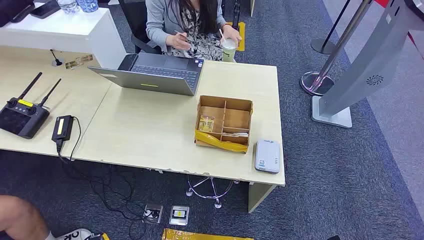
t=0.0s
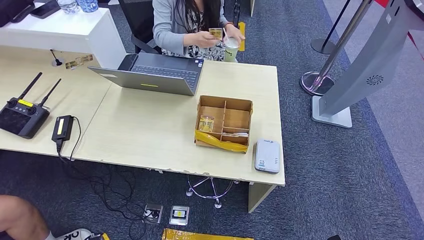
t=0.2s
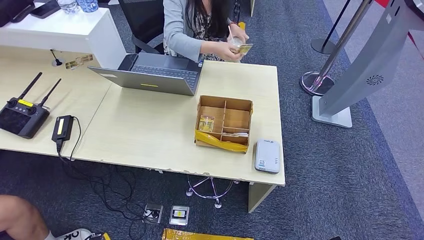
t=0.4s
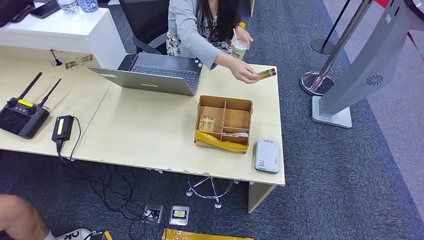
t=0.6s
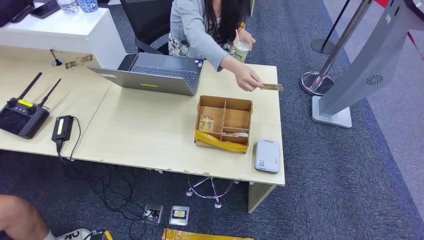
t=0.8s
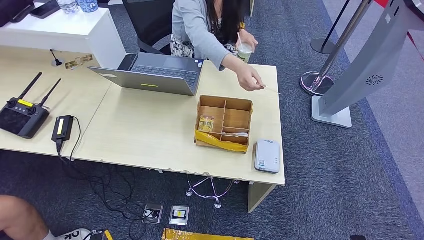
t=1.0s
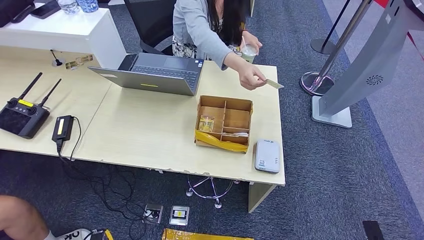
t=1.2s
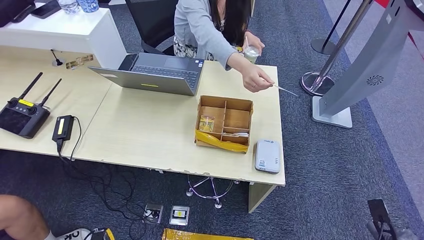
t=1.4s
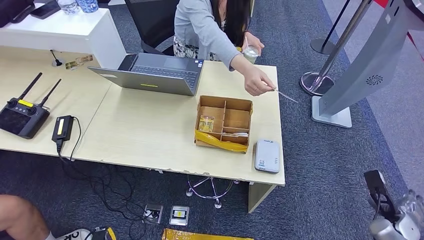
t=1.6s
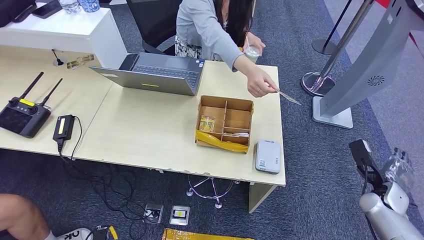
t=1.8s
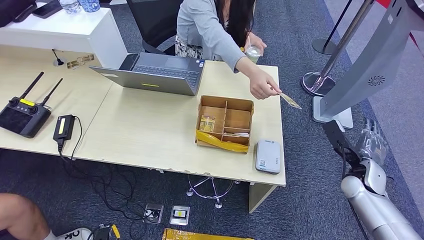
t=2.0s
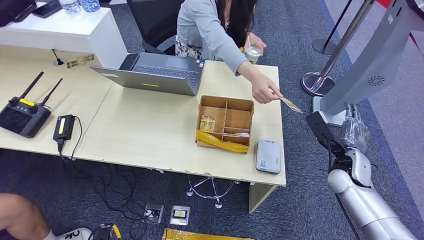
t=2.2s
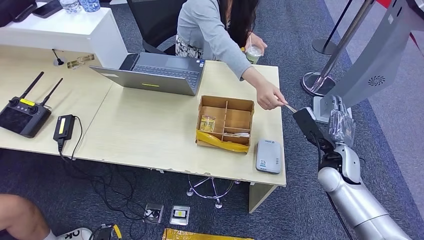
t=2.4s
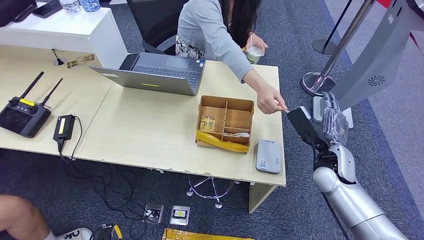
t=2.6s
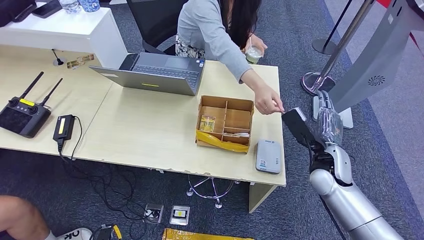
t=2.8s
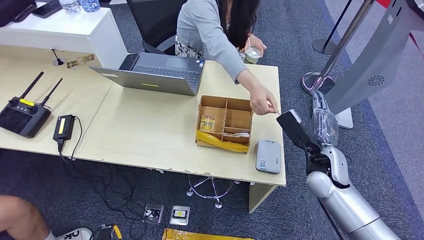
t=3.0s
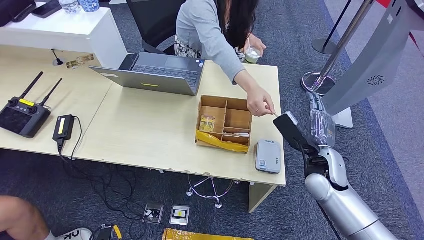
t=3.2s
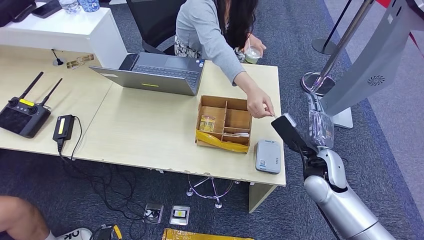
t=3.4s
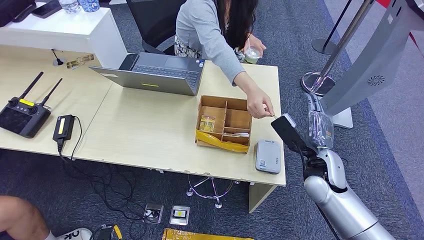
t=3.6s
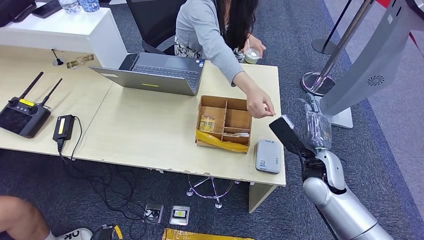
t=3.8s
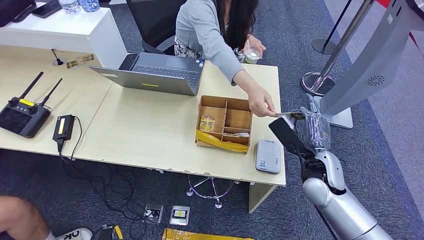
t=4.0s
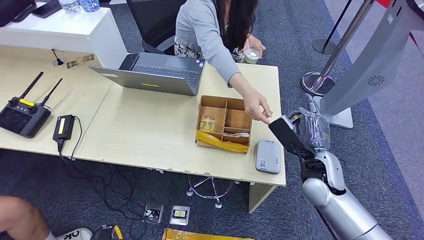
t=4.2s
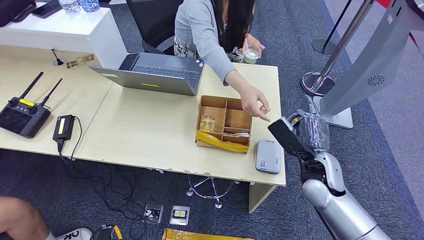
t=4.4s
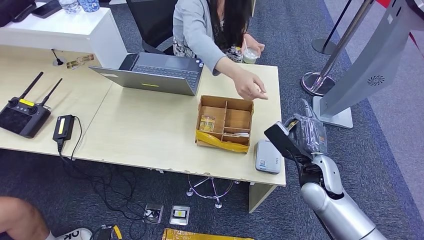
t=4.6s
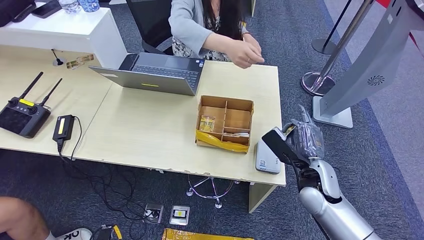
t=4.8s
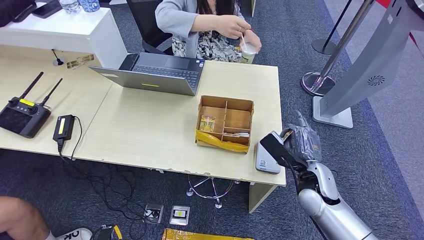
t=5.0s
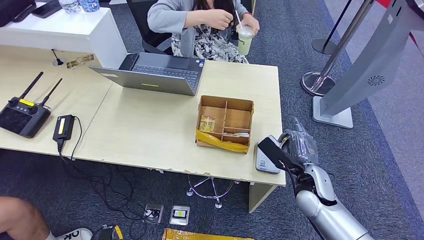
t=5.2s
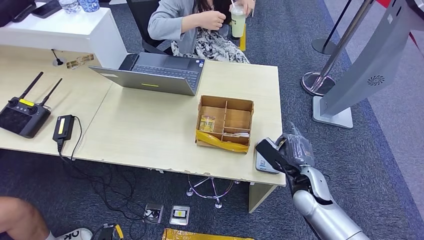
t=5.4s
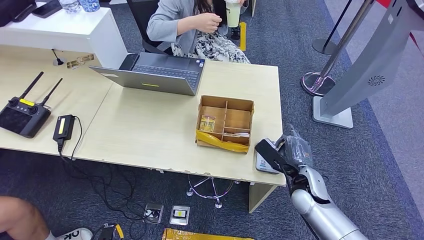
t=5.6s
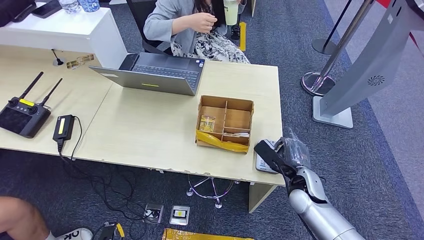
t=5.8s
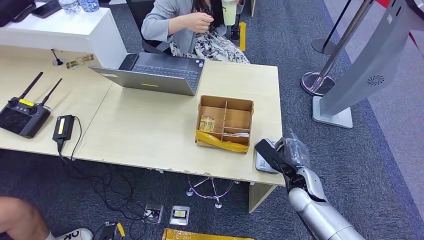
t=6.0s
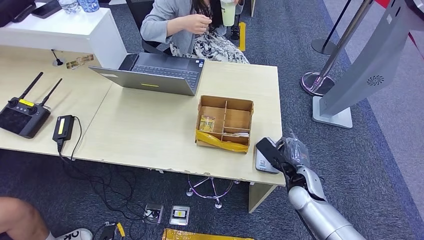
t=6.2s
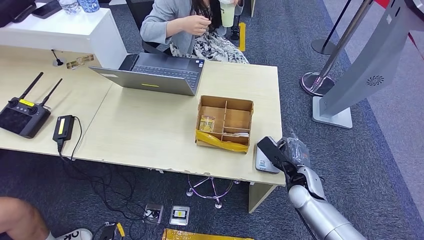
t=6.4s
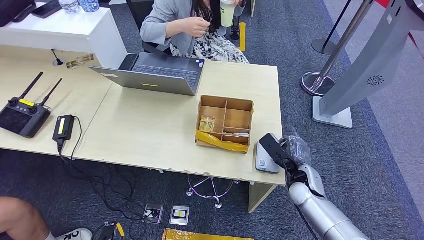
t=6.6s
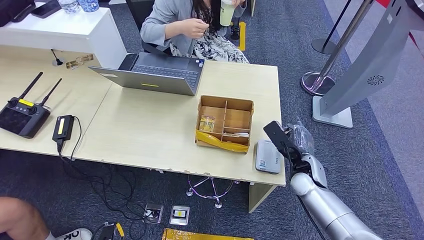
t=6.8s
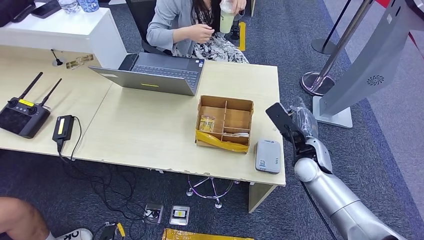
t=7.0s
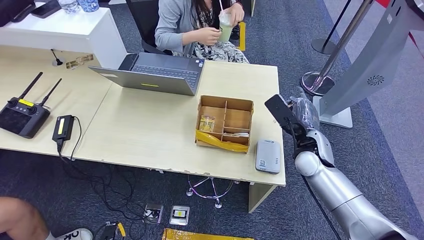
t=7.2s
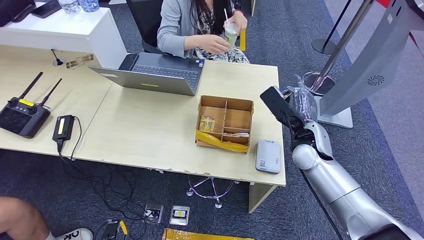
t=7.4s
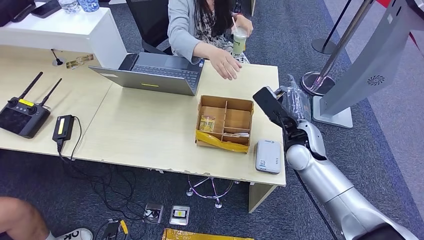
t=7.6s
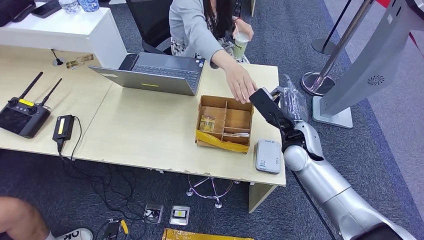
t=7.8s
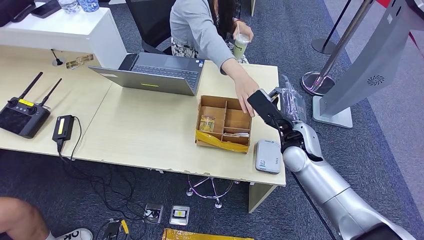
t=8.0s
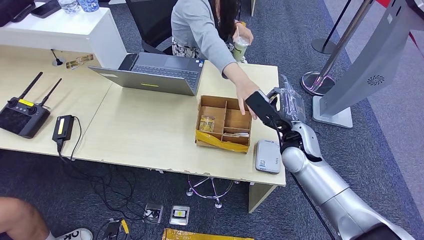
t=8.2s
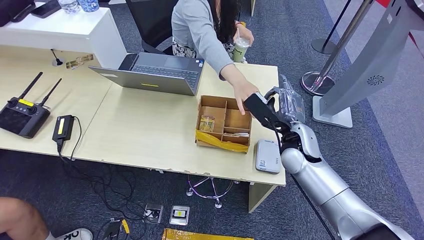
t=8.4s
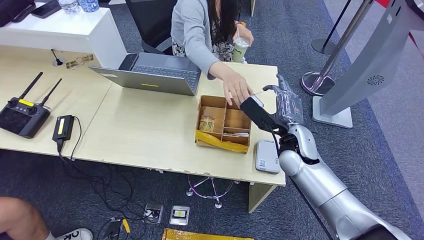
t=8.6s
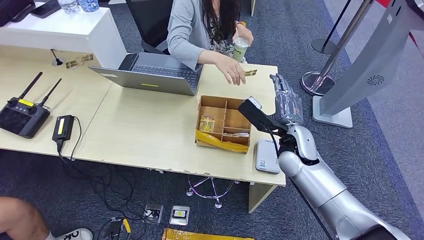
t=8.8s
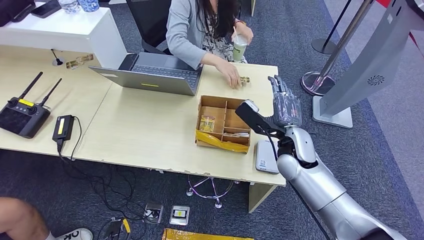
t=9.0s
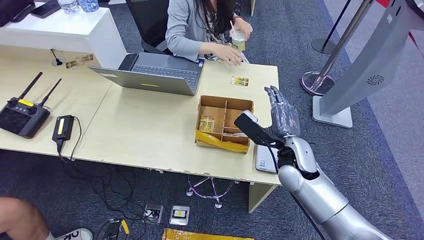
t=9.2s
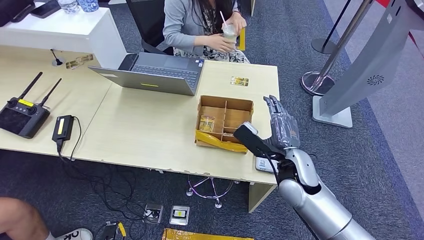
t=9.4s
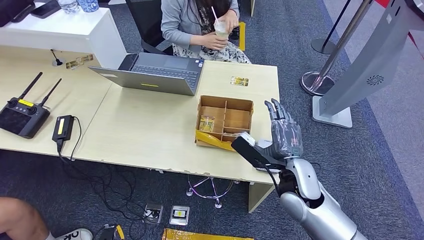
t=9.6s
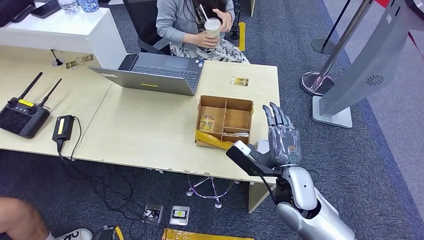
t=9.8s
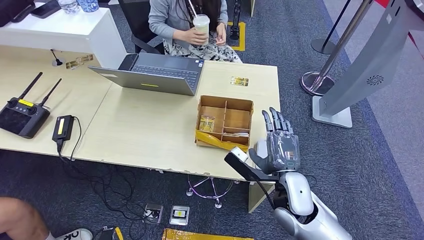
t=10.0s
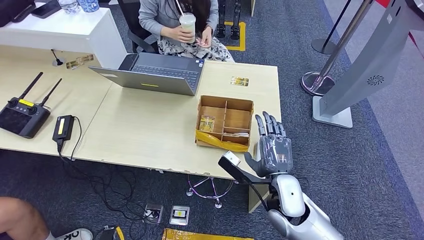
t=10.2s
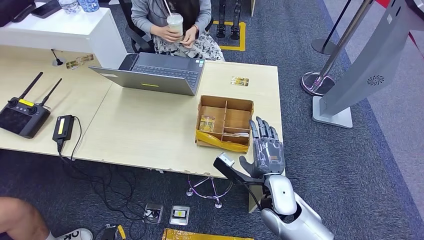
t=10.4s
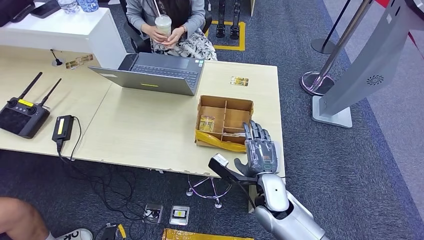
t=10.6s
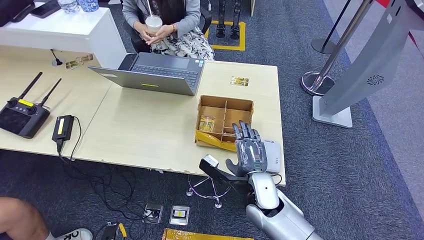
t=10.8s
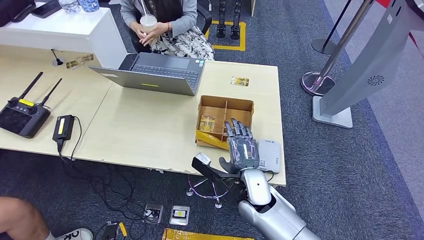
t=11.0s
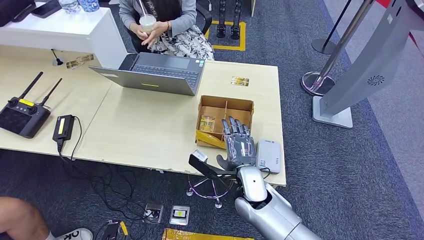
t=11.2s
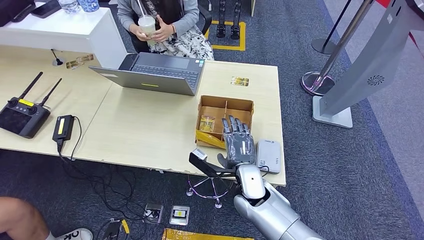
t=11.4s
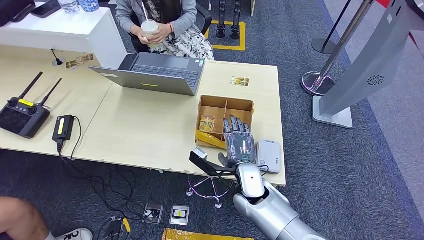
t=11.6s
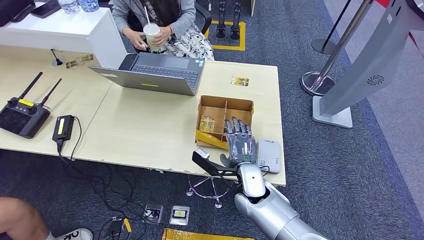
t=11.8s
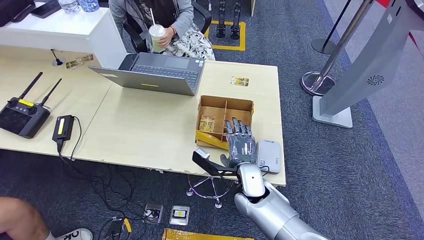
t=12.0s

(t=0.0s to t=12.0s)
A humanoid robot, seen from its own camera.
Step, t=0.0s - t=5.0s: Take the ID card from the person's hand.
Step, t=5.2s - t=6.2s: Place the ID card on the card reader.
Step, t=7.2s - t=8.8s: Hand the ID card to the person.
t=1.6s - t=3.0s: The right hand is displaced to the left and upward by some 25 cm.
t=3.0s - t=4.4s: The hands stay close to where they were, moving slightly.
t=4.4s - t=6.0s: The right hand is displaced downward by approximately 10 cm.
t=6.0s - t=7.6s: The right hand shifts about 15 cm upward and forward.
t=7.6s - t=9.0s: The hands stay close to where they were, moving slightly.
t=9.0s - t=10.4s: The right hand is displaced backward and downward by approximately 10 cm.
t=10.4s - t=12.0s: The right hand shifts roughly 5 cm to the left.

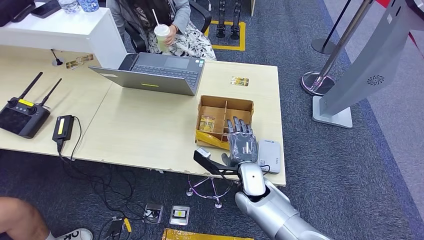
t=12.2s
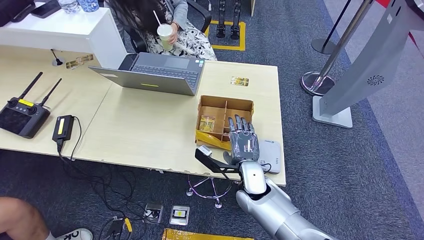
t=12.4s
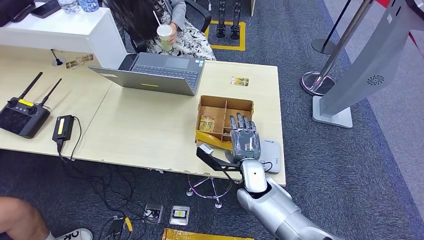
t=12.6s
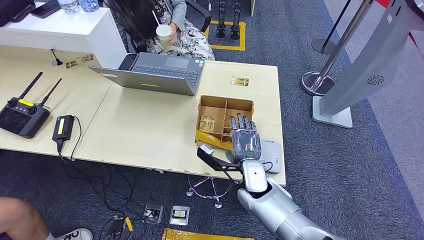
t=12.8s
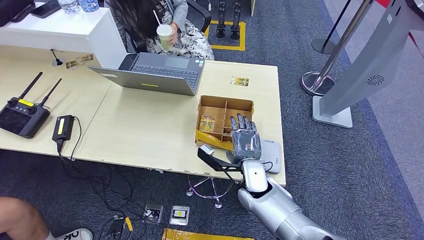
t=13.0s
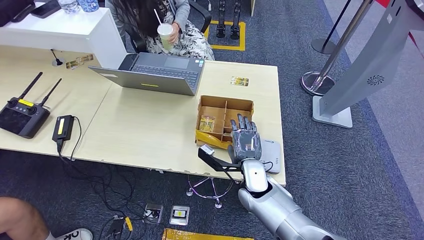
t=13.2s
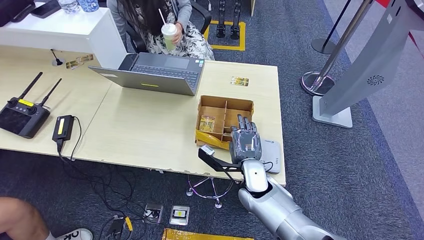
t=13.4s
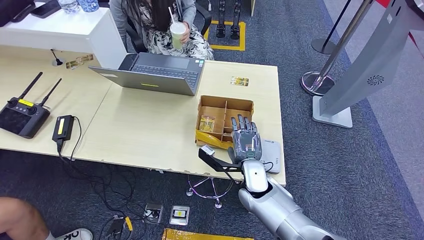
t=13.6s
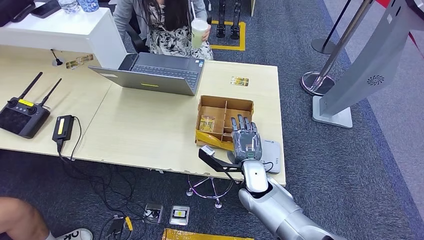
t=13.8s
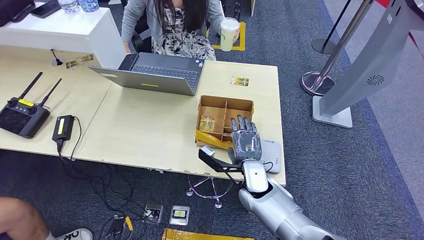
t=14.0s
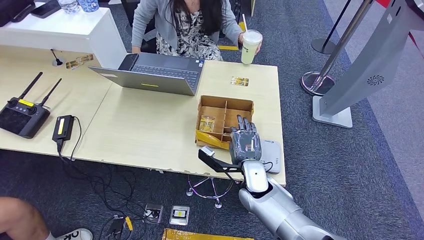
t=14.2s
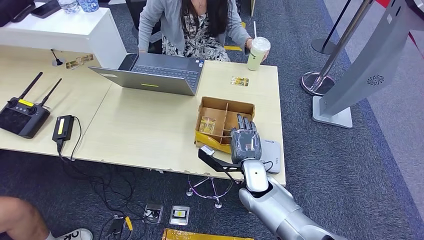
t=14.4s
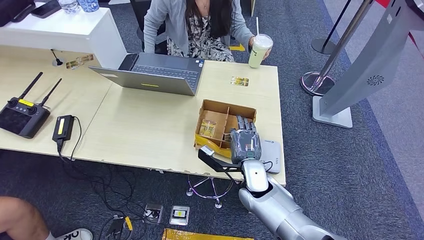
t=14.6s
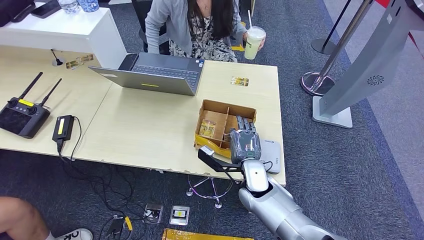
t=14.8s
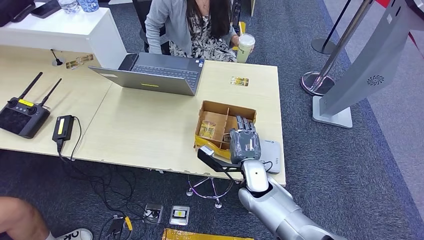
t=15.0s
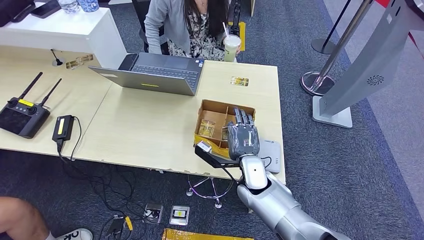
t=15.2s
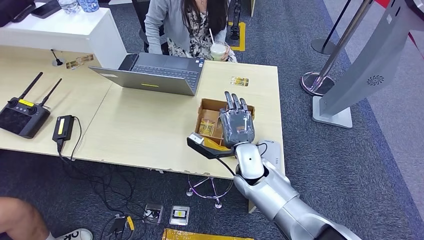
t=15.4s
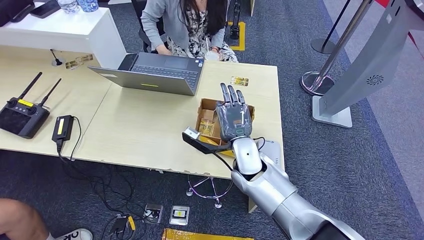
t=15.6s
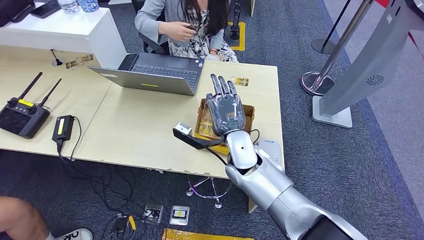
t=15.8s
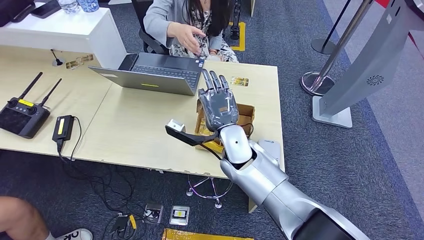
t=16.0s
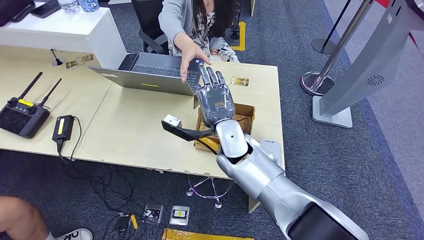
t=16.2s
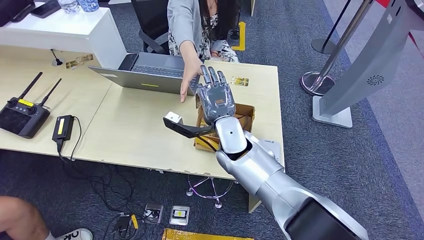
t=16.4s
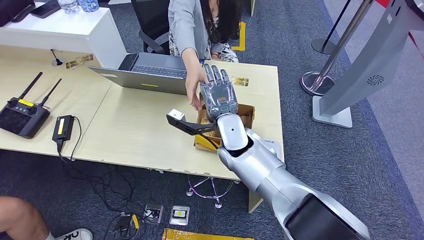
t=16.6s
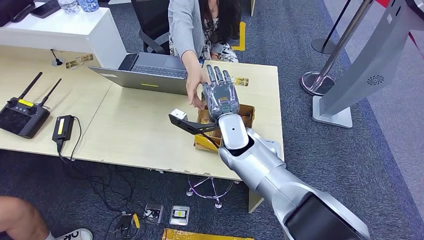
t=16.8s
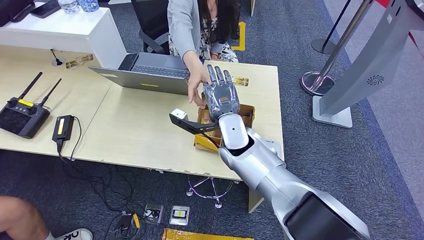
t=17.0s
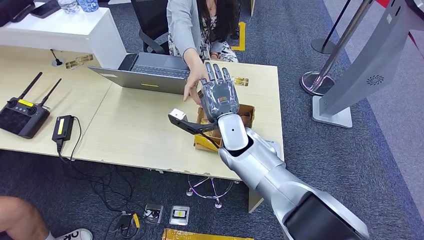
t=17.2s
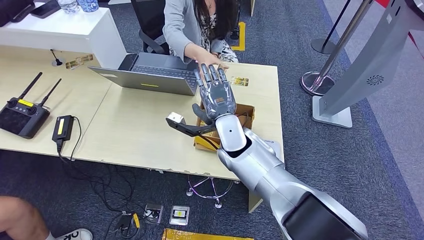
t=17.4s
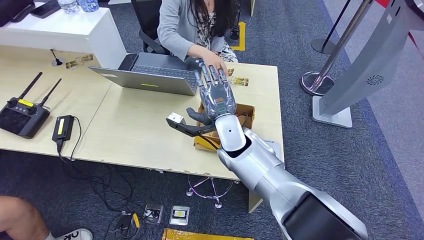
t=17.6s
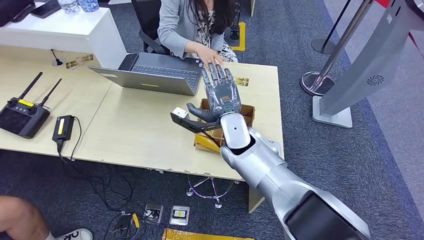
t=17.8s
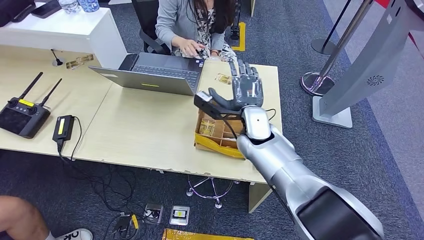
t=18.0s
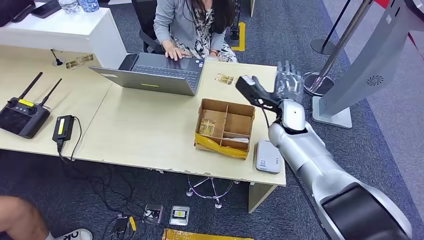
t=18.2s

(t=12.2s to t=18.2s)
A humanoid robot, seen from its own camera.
Step, t=12.2s - t=16.2s: Pick up the room key from the key card box.
Step, t=16.4s - t=18.0s: Hand the room key to the person.
t=12.2s - t=15.2s: The hands make only small movements.
t=15.2s - t=16.6s: The right hand is displaced upward, to the left and forward by about 15 cm.
